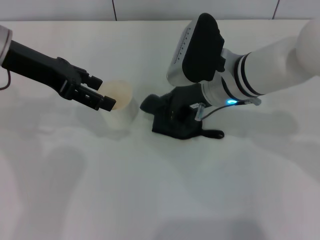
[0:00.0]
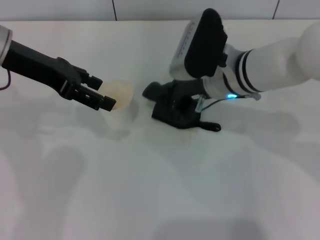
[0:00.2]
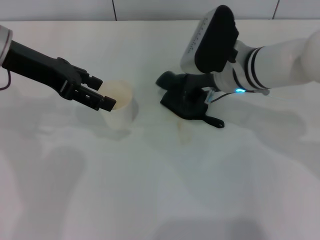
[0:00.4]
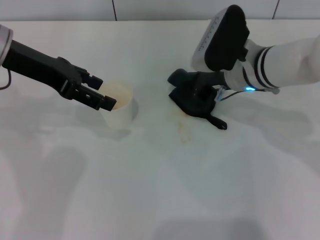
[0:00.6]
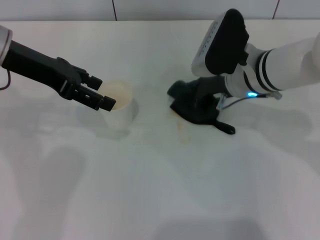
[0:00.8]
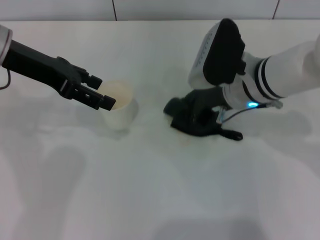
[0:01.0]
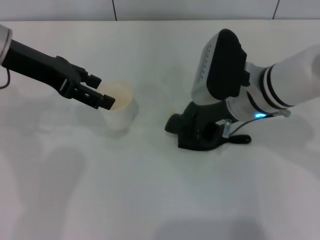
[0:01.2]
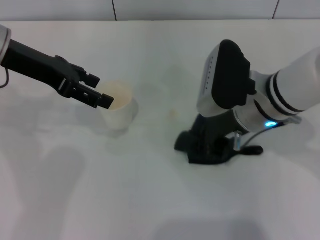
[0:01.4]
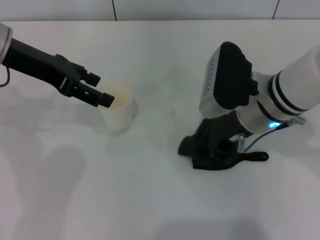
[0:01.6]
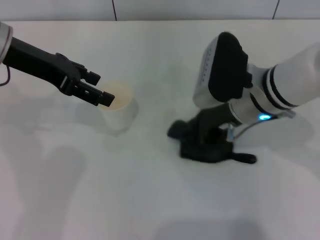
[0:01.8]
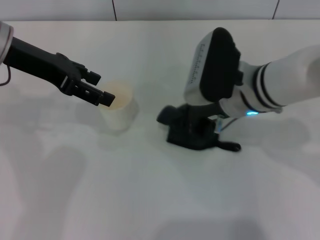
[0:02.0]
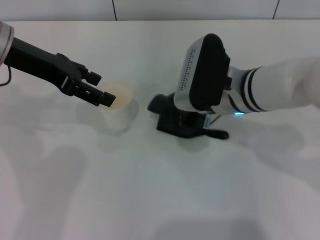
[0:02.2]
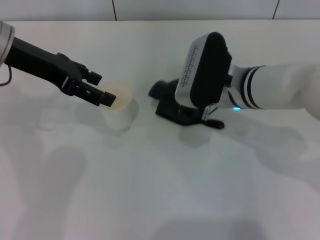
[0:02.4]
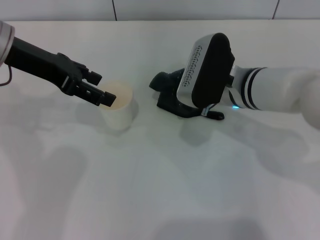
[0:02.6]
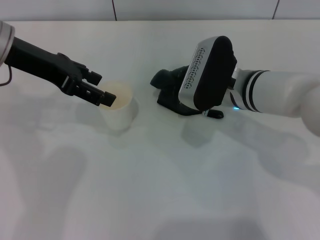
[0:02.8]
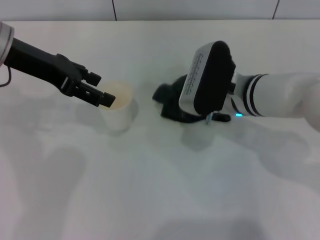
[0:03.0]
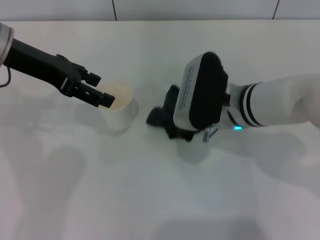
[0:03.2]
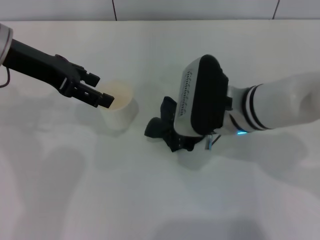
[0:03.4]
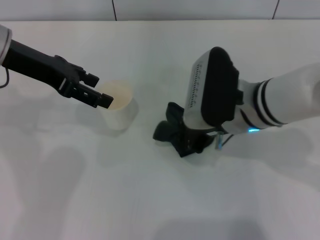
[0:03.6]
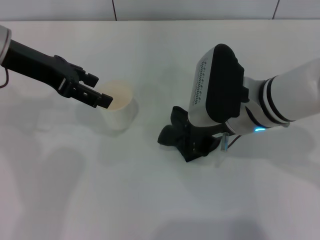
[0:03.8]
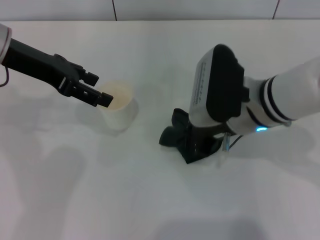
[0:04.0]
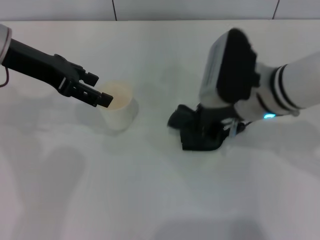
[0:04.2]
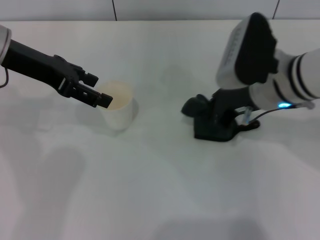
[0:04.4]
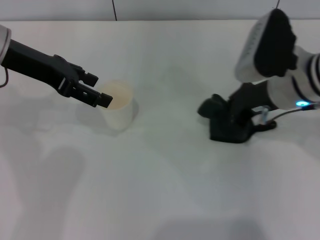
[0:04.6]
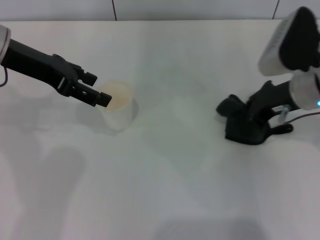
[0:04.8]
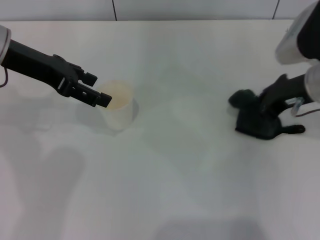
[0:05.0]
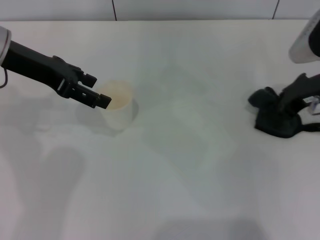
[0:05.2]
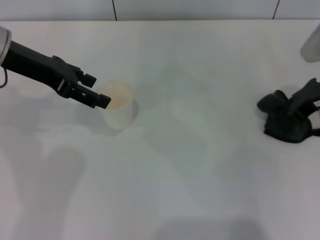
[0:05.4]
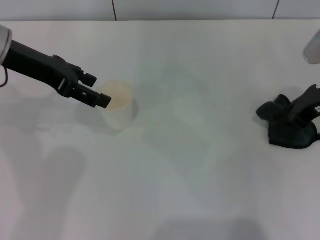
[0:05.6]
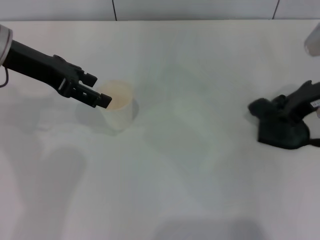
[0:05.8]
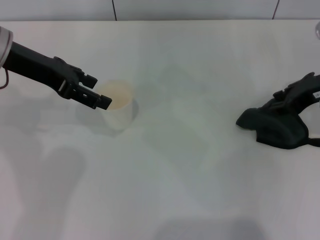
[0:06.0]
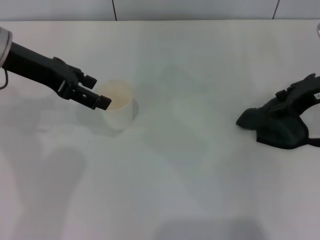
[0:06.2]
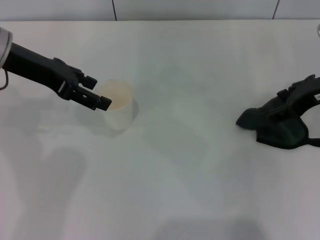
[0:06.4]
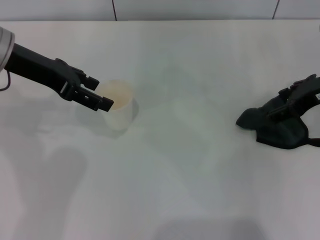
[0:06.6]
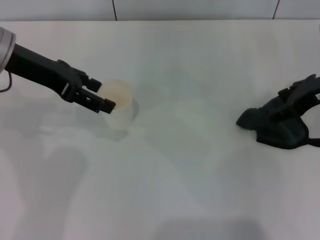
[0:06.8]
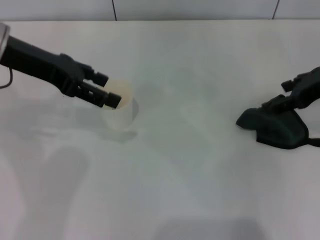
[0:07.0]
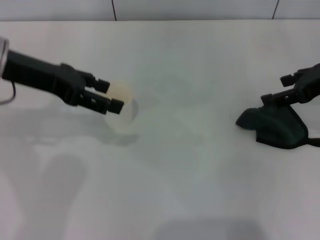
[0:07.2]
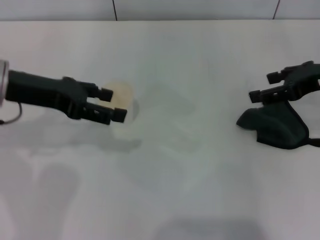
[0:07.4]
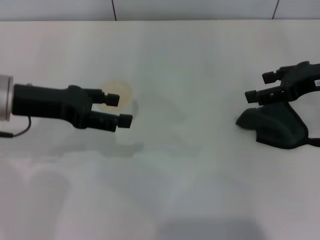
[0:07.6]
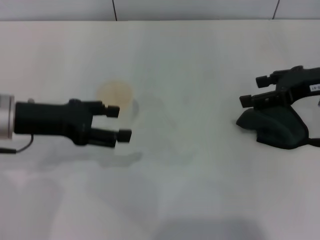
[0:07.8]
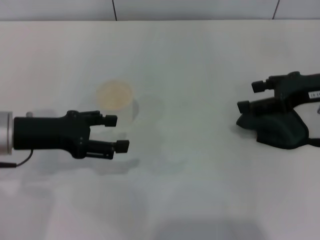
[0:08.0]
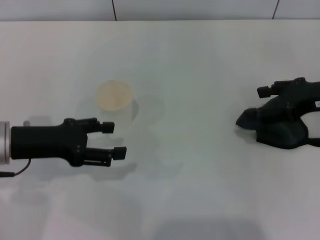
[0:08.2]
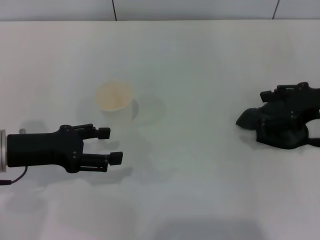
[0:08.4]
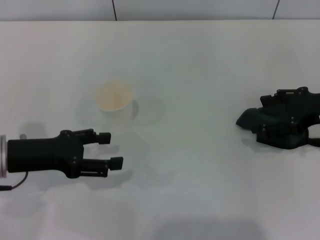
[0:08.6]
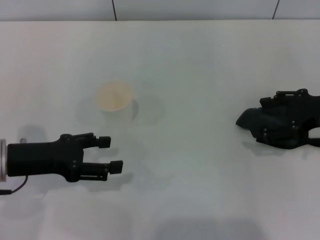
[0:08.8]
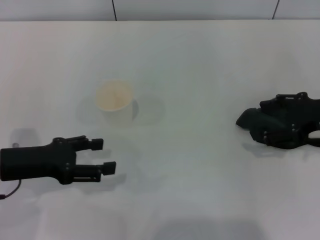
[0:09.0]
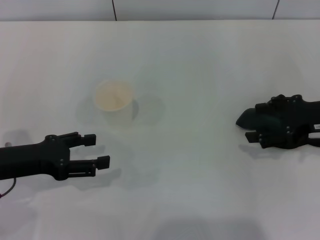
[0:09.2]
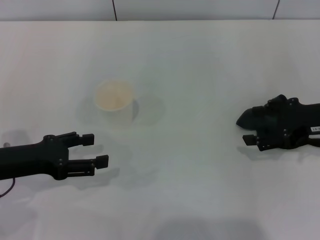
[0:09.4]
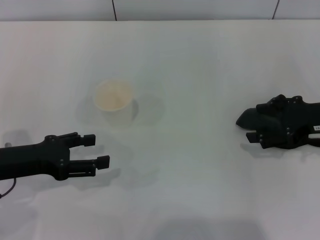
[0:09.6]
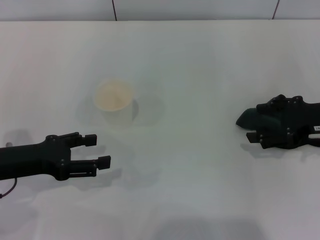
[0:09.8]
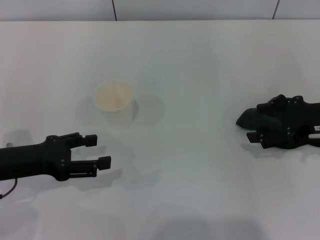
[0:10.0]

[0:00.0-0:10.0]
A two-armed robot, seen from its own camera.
Step, 0:00.0 to 0:04.6: Wipe the stains off the table with the right gripper.
Step, 0:04.8 to 0:06.8: Place the rag on the table with the right gripper.
0:00.0 to 0:01.4: The right gripper changes place by roughly 5 cm.
0:02.8 to 0:04.2: The right gripper shifts by approximately 5 cm.
0:04.2 to 0:05.8: The right gripper goes roughly 15 cm to the right.
0:05.8 to 0:07.2: The right gripper opens up.
0:07.2 to 0:08.6: The left gripper goes about 15 cm downward and backward; the right gripper travels downward by roughly 5 cm.
0:08.6 to 0:10.0: There are only small adjustments of the grippers.

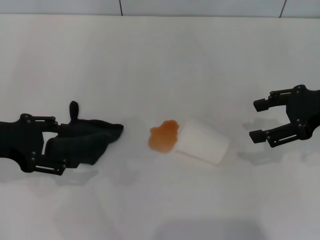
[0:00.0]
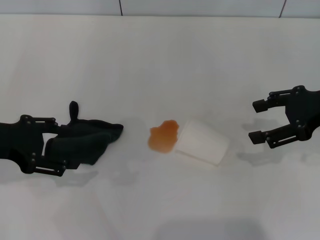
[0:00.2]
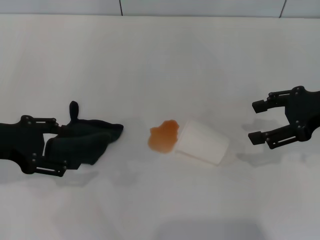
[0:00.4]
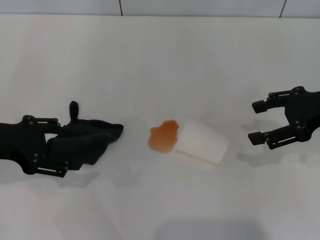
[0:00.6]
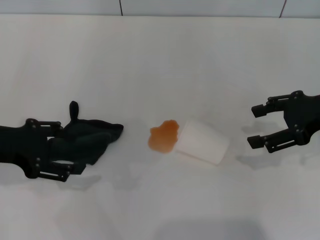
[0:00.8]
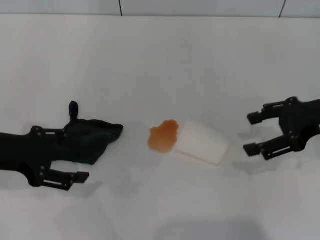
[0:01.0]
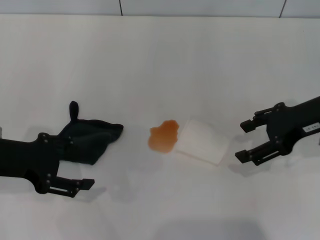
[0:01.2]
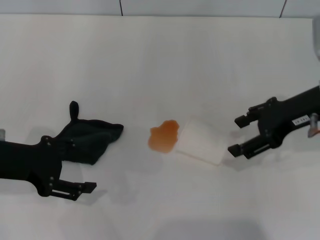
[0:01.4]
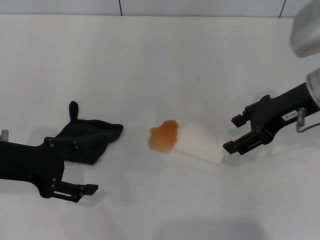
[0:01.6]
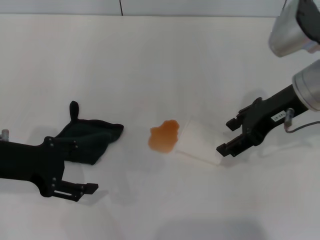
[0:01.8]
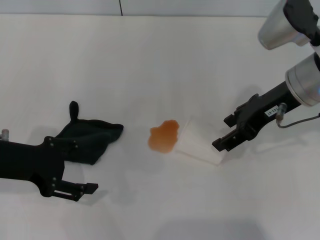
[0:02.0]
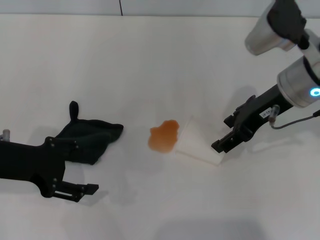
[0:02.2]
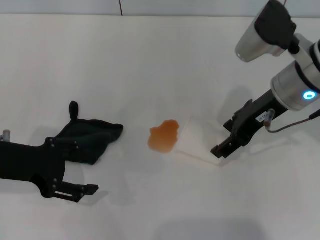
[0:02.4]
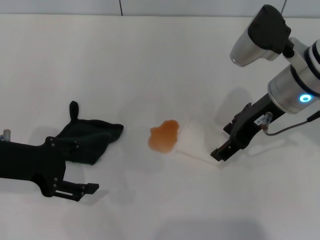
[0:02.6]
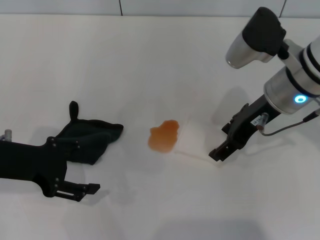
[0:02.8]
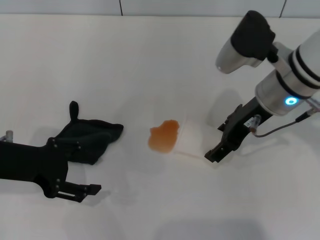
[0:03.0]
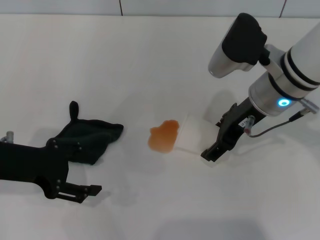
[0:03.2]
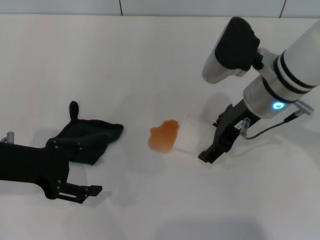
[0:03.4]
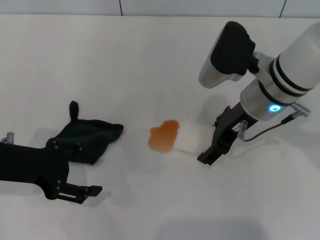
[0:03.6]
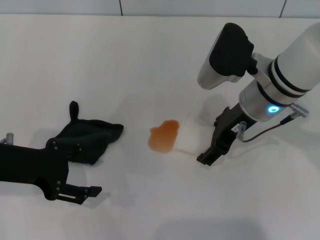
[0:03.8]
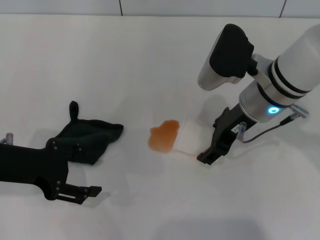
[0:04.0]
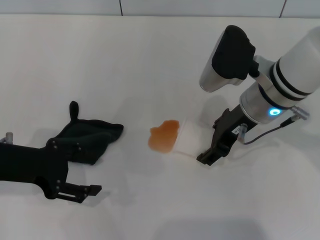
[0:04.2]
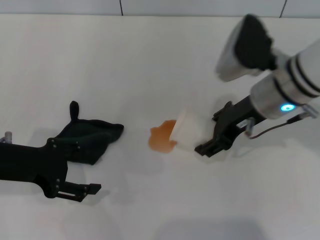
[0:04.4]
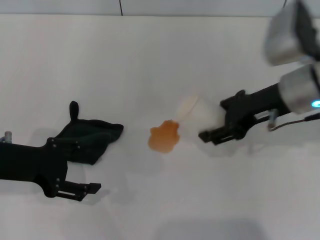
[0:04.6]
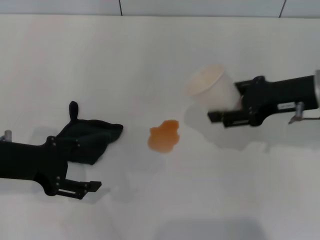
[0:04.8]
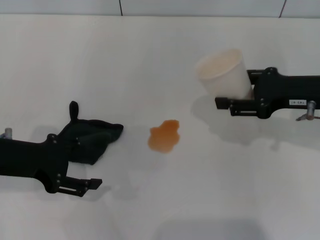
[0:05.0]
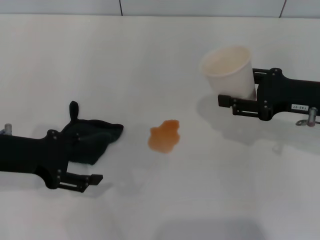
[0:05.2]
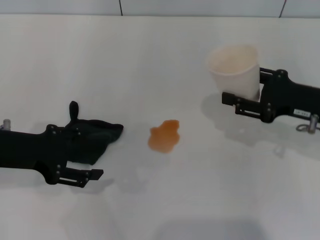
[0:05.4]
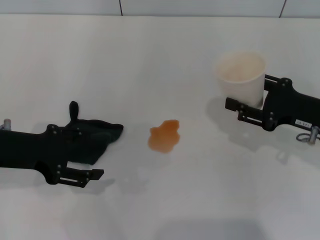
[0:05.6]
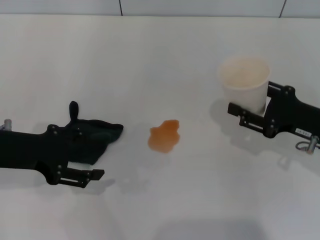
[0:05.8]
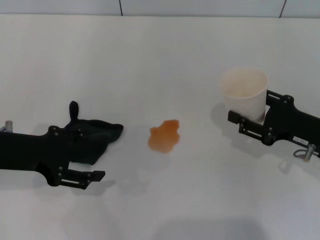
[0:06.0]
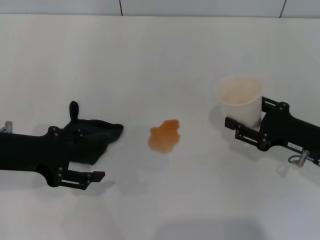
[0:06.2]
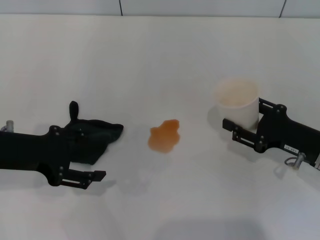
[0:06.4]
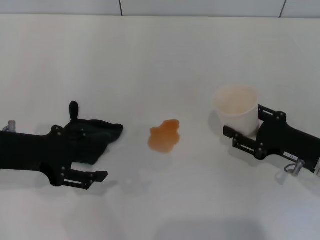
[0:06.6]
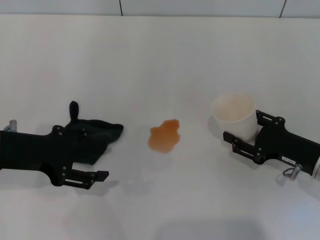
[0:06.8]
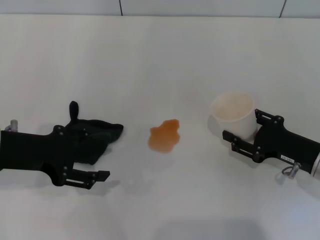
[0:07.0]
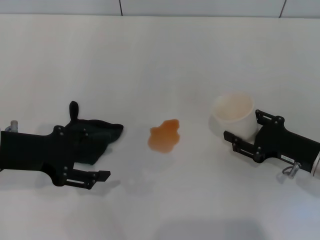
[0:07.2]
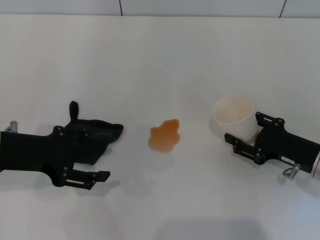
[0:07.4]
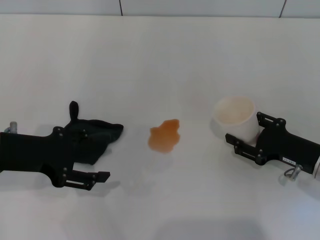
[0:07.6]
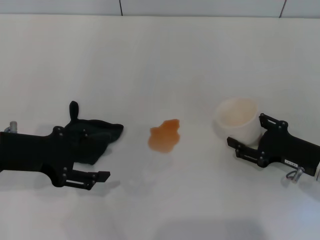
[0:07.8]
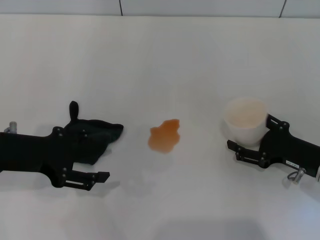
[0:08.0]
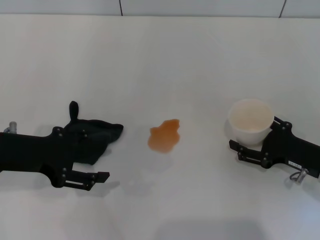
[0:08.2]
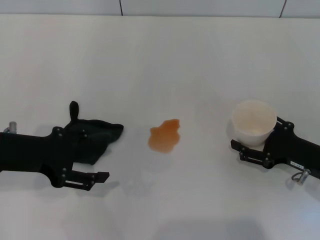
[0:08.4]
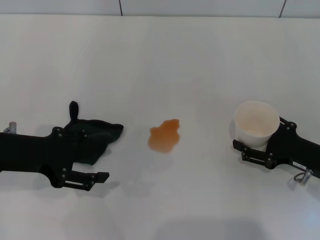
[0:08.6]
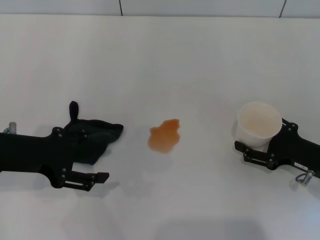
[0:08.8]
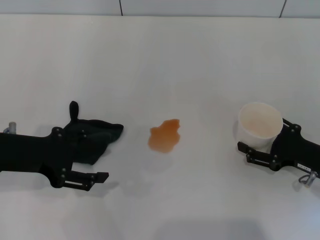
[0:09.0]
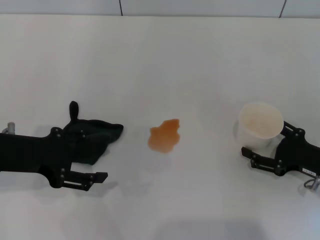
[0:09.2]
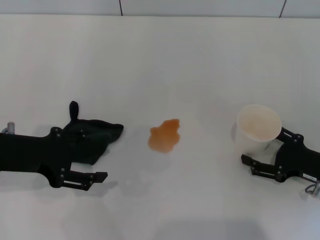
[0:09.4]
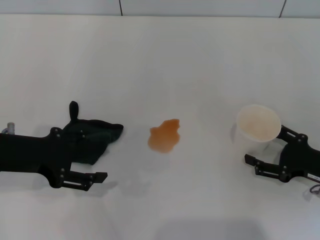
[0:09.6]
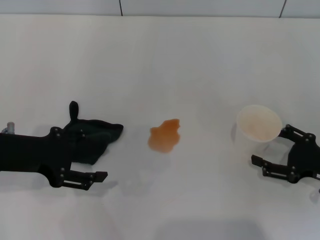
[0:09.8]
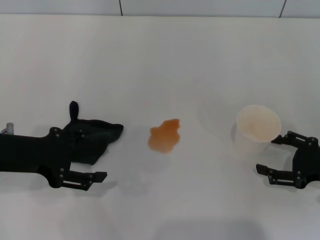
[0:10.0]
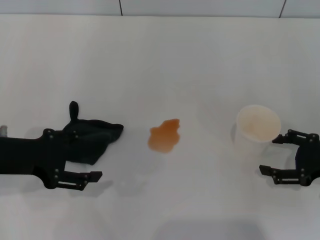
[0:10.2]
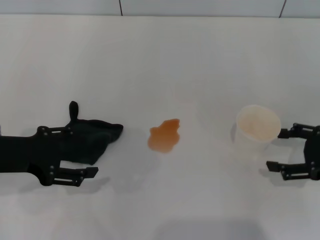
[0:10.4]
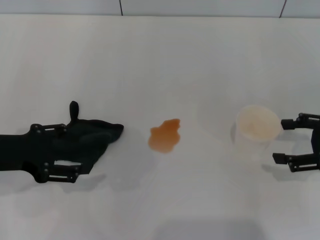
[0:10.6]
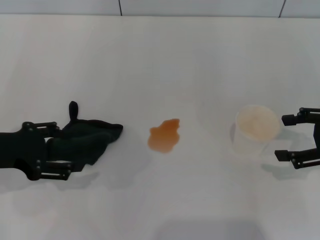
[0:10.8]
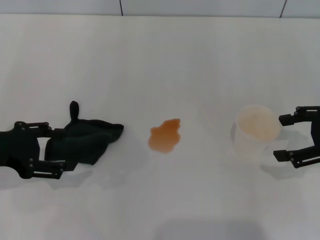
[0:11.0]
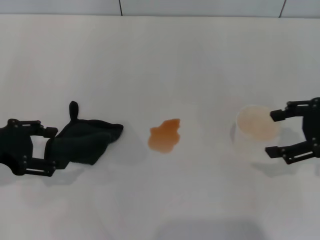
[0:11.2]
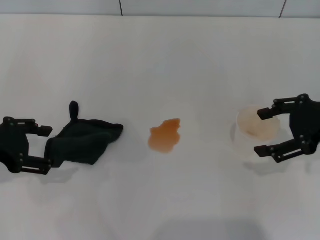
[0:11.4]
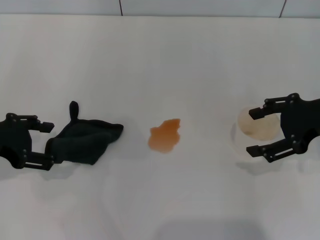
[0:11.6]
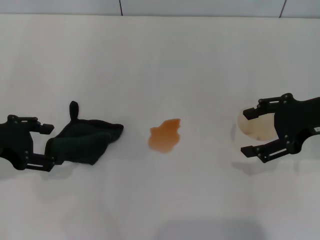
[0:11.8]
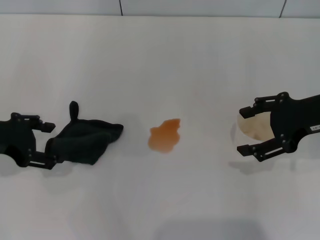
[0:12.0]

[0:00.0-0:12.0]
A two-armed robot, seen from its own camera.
Step, 0:00.0 to 0:04.0: Grasp the paper cup with the right gripper.
Step, 0:04.2 to 0:09.4: Stand the paper cup upright with the right gripper.
0:00.0 to 0:01.6: The right gripper goes about 5 cm to the left.
0:01.6 to 0:03.0: The right gripper goes approximately 5 cm to the left.
0:03.0 to 0:04.4: The right gripper closes its fingers.
0:04.4 to 0:06.0: The right gripper is displaced to the right, downward and backward by approximately 20 cm.
0:06.0 to 0:07.6: There are only small adjustments of the grippers.
0:07.6 to 0:09.0: The right gripper opens up.
0:09.0 to 0:10.4: The right gripper shifts roughly 10 cm upward.
0:10.4 to 0:12.0: The right gripper goes about 10 cm upward and to the left.
